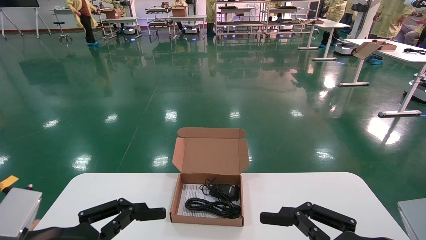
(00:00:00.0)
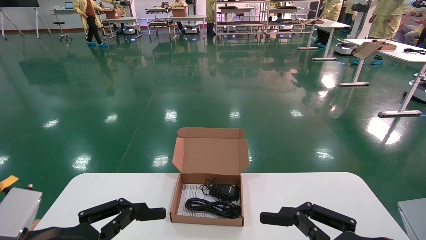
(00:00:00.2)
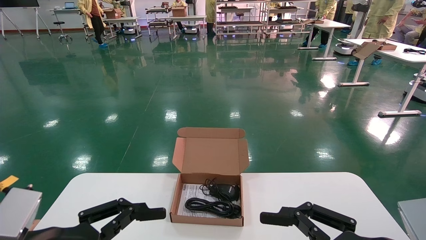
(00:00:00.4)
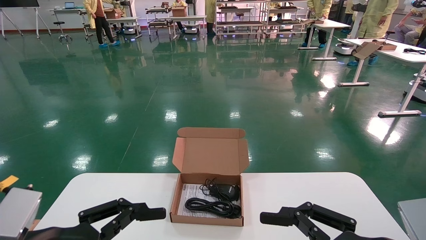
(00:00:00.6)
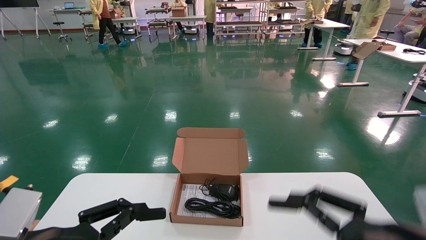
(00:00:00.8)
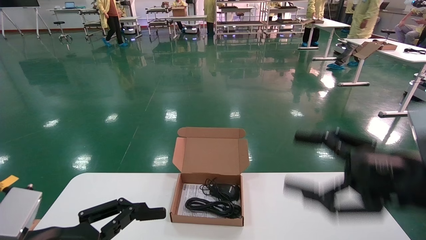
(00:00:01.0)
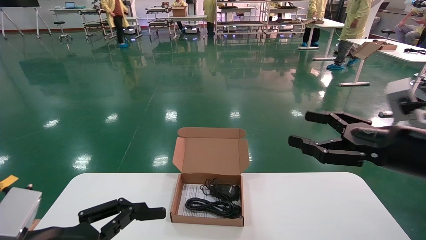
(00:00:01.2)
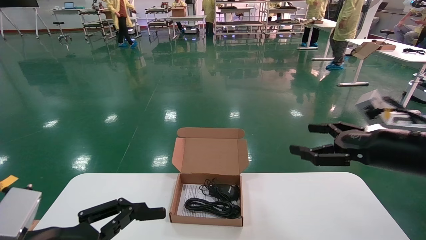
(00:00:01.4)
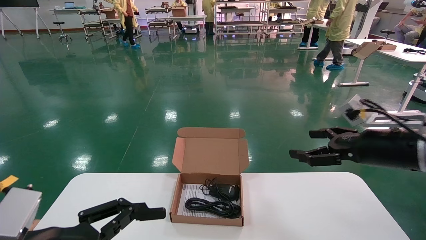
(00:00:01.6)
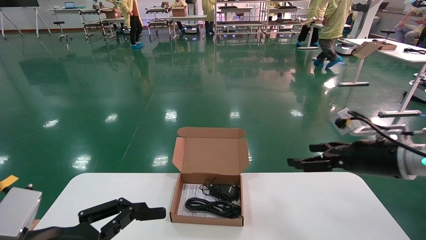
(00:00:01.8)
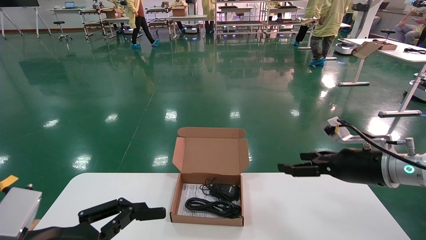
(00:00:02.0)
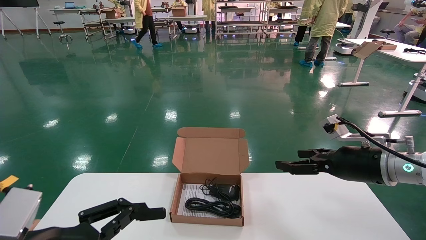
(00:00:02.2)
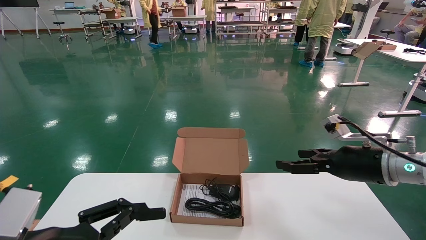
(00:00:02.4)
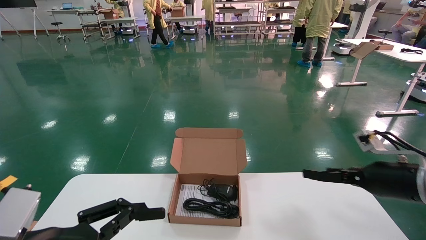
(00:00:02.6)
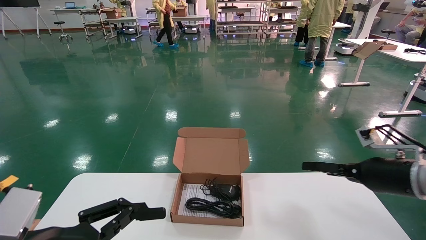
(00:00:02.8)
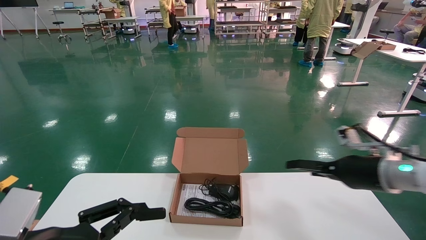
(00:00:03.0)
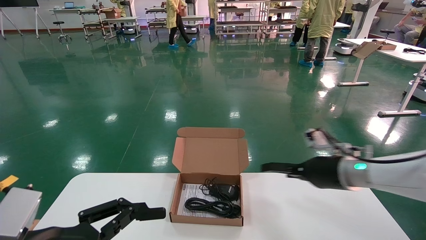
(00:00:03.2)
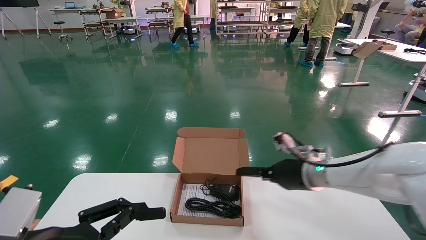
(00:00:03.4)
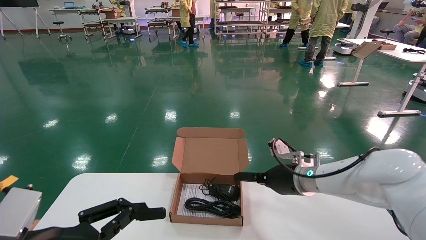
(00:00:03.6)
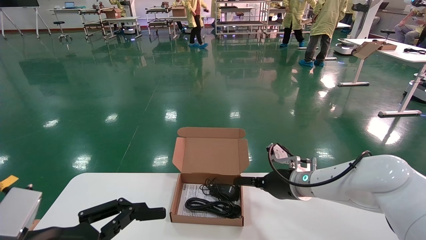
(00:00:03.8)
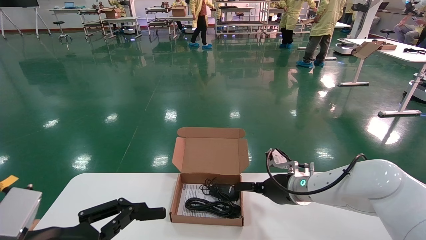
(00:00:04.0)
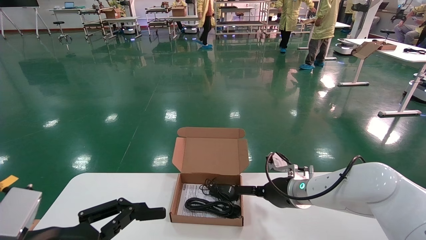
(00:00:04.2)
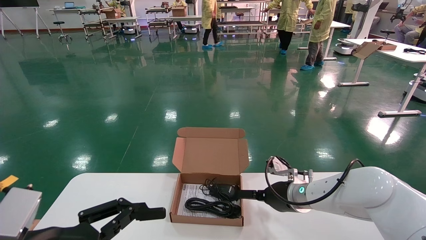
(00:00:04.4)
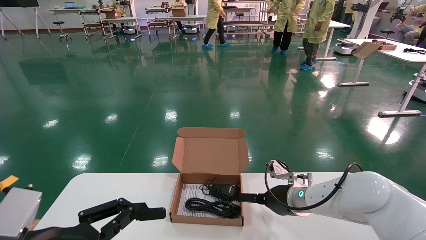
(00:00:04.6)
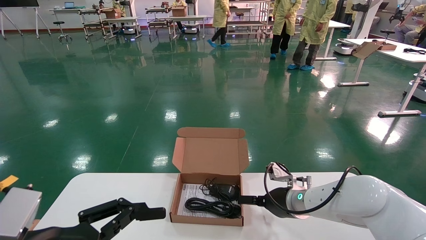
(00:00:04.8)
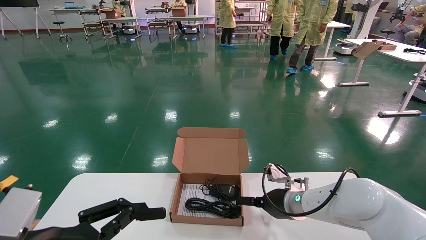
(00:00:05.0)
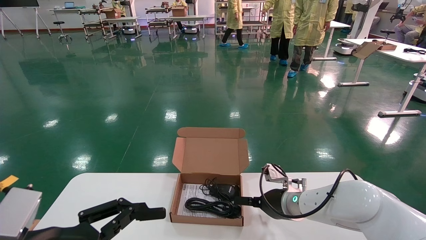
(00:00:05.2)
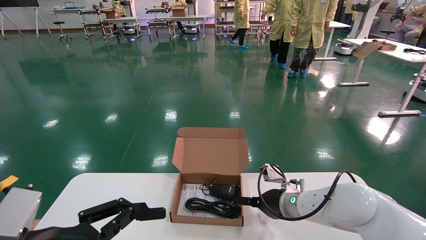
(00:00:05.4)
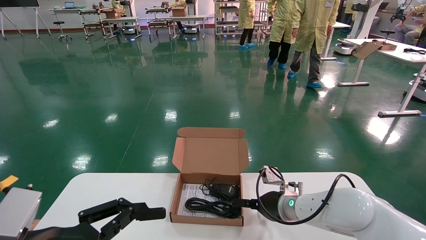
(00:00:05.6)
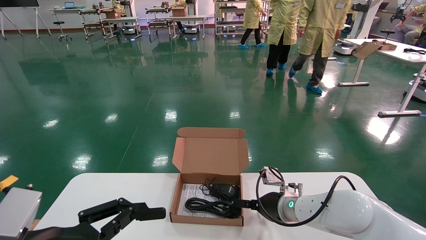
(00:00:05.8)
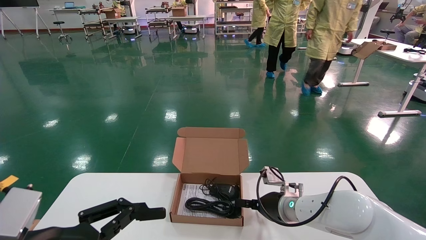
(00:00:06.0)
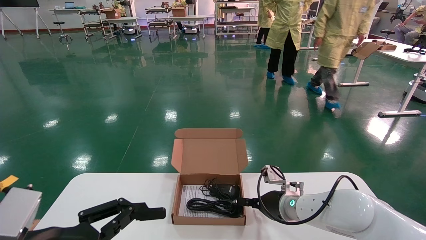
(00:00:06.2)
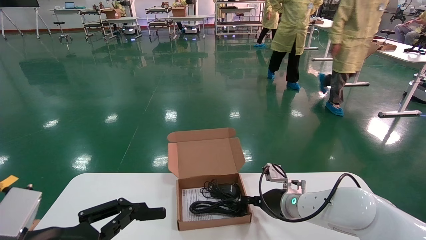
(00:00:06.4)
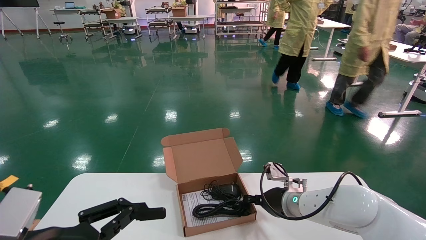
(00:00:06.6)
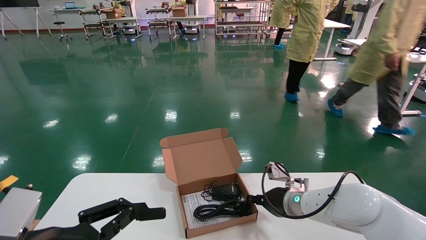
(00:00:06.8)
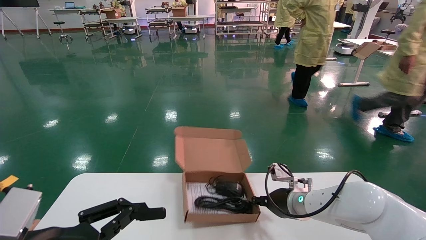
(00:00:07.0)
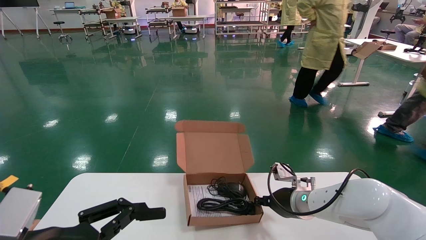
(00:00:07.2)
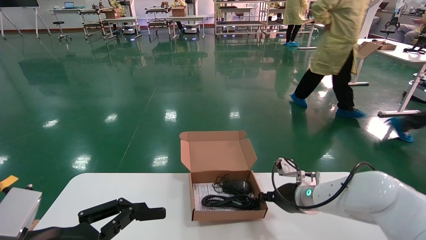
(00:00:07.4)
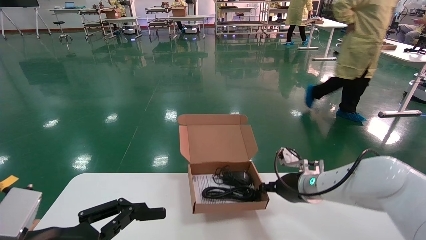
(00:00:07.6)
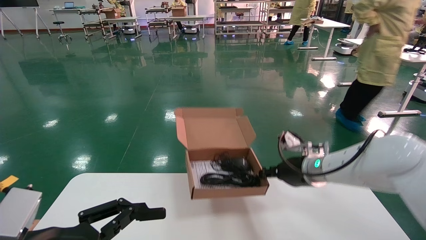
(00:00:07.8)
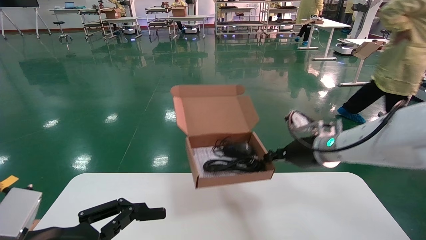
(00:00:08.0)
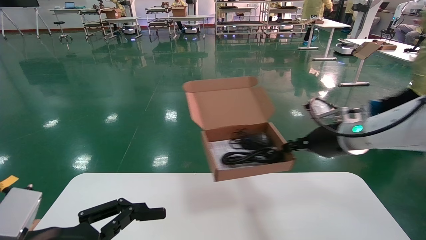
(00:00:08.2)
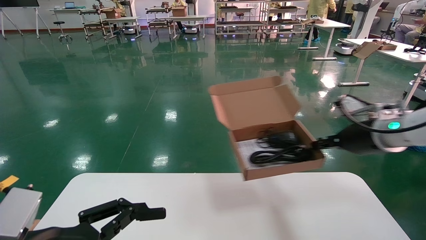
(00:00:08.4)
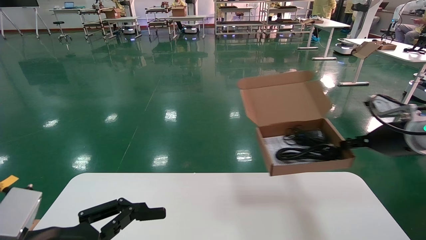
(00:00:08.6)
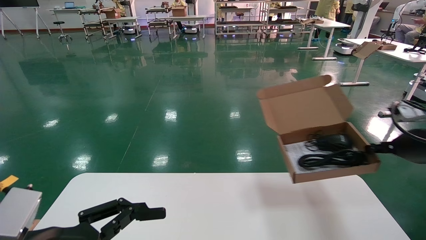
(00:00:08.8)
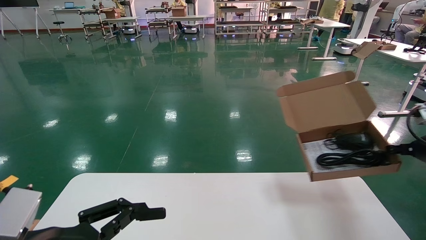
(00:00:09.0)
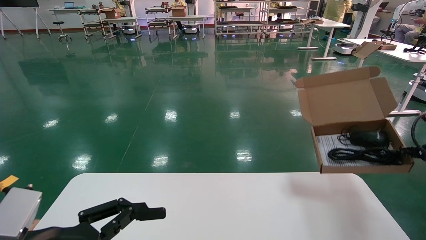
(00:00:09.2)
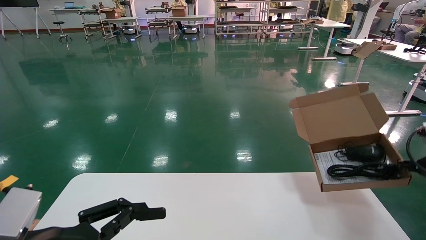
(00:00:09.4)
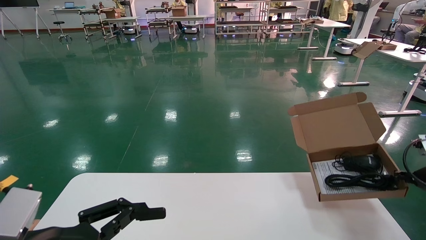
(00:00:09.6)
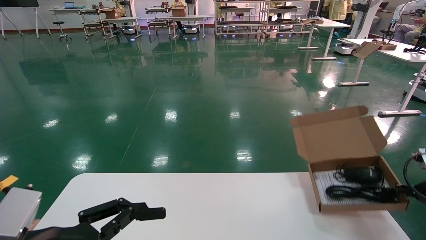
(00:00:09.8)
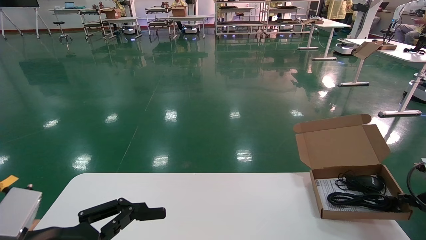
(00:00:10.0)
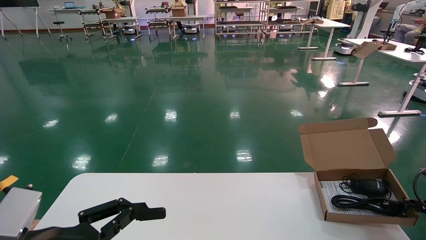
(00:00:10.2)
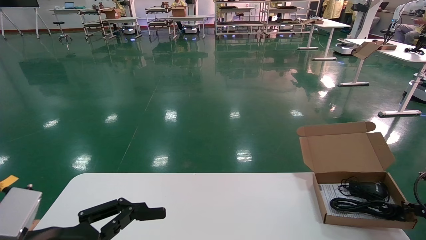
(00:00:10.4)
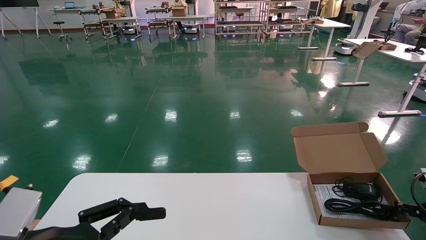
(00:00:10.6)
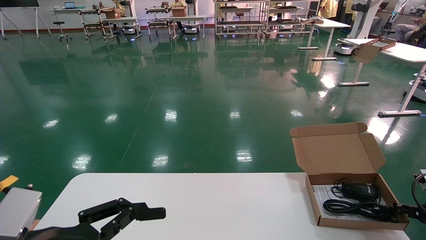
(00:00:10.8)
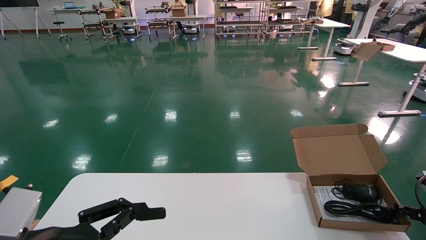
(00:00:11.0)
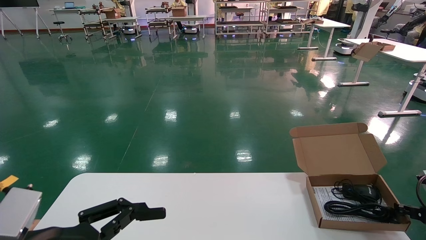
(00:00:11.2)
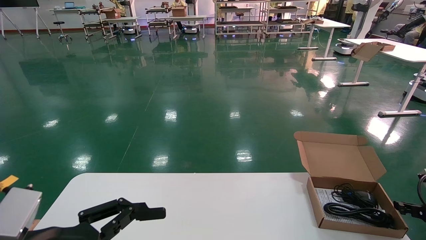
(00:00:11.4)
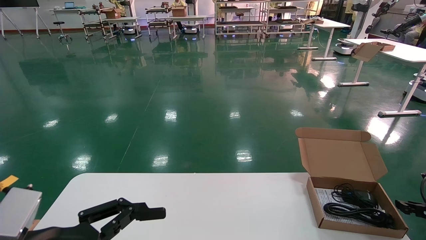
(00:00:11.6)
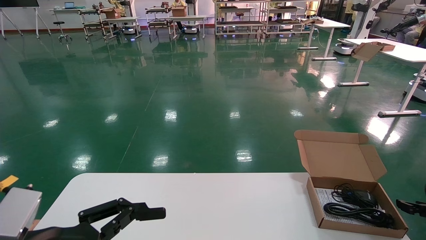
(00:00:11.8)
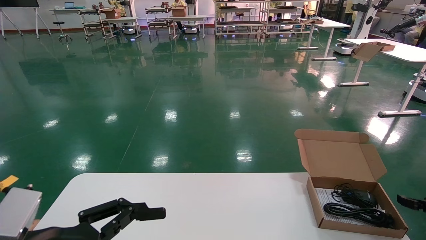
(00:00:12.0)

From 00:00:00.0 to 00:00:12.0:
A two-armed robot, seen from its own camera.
Task of the whole recording: move the position of the storage box with accessories on the table.
Step, from 00:00:01.0 to 00:00:06.8: Grab and pick up the open mouse box from the accessory packaging area.
Step, from 00:00:07.0 to 00:00:11.6: Place the open mouse box onto the operation table.
From 00:00:00.0 to 00:00:01.6: The right gripper travels forward and upward by roughly 20 cm.
From 00:00:01.6 to 00:00:03.0: The right gripper travels downward and forward by roughly 10 cm.
From 00:00:03.0 to 00:00:04.4: The right gripper is displaced to the left and downward by about 15 cm.
From 00:00:04.4 to 00:00:06.0: There are only small adjustments of the grippers.
From 00:00:06.0 to 00:00:07.6: The right gripper shifts about 5 cm upward, and closes up.
From 00:00:07.6 to 00:00:09.0: The right gripper is displaced to the right by about 25 cm.
From 00:00:09.0 to 00:00:10.4: The right gripper shifts some 15 cm downward.
From 00:00:10.4 to 00:00:12.0: The right gripper opens its fingers.

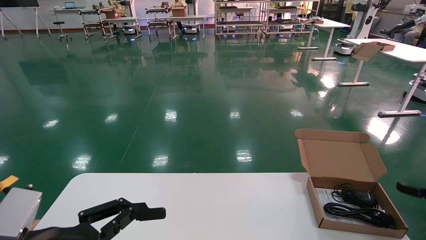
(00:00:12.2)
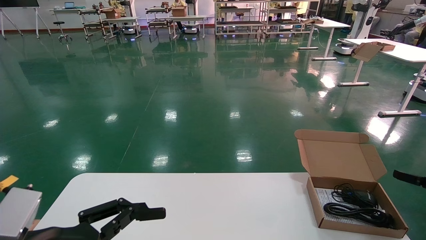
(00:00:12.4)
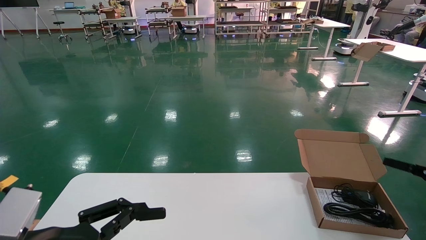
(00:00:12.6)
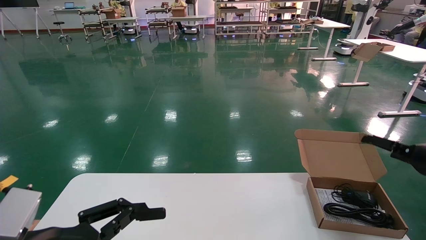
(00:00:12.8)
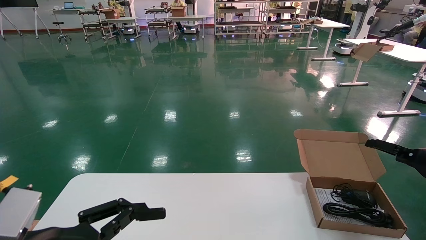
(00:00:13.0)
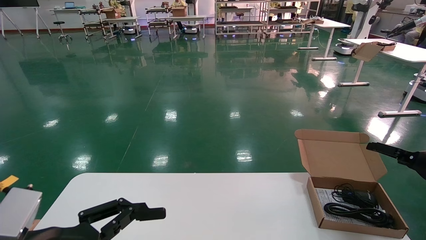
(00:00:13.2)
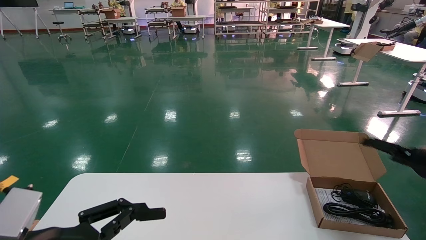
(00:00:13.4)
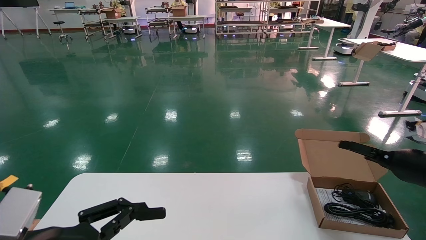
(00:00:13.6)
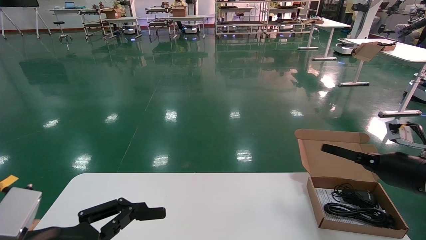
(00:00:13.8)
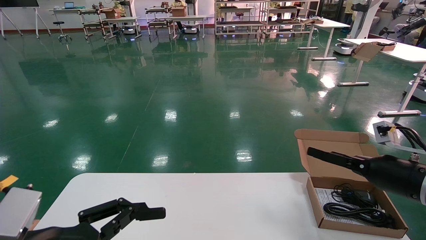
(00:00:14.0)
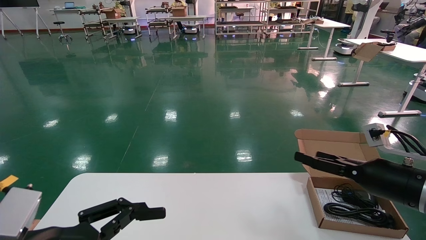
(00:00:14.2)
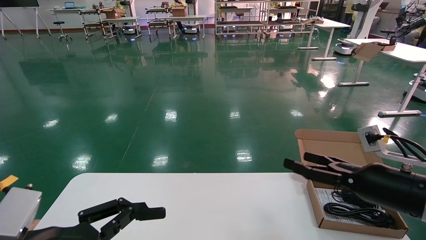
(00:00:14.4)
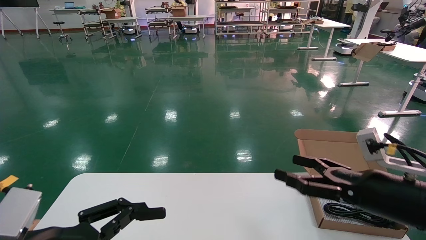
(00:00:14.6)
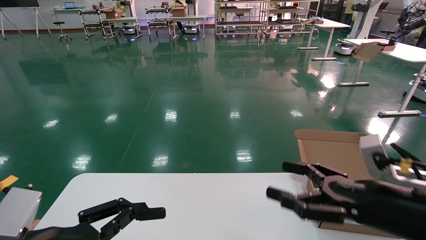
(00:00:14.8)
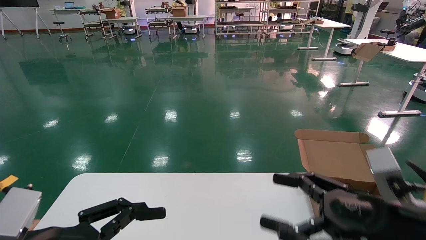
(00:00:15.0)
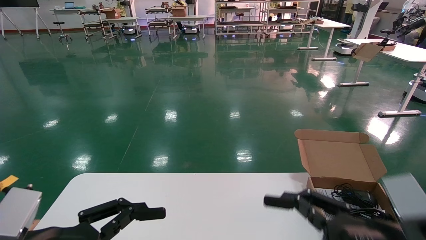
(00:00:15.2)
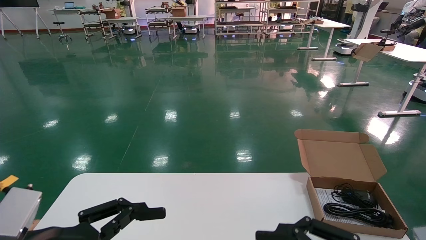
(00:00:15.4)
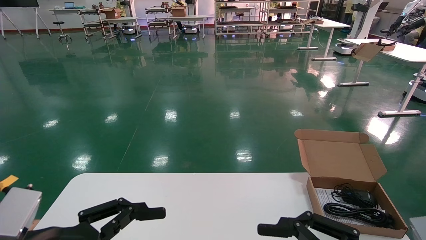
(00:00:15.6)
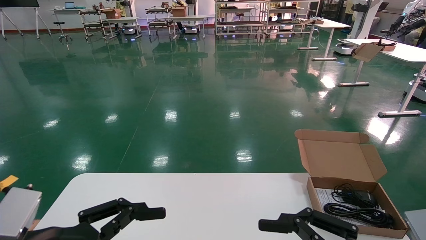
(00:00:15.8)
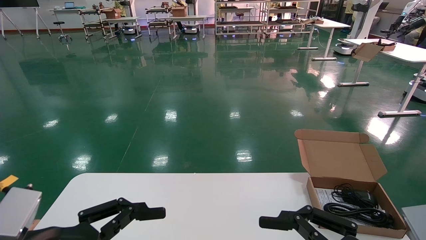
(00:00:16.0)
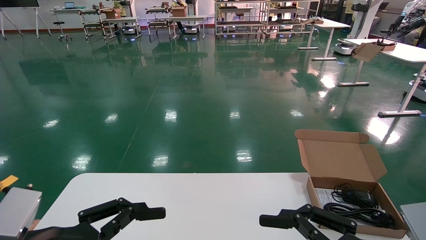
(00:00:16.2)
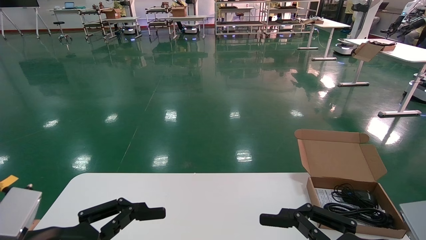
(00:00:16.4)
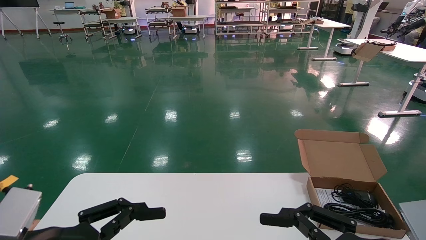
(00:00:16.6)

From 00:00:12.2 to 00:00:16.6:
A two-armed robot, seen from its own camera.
Task of the whole recording: move the position of the storage box with accessories on the table.
From 00:00:12.2 to 00:00:13.6: The right gripper moves to the left and upward, some 10 cm, and opens its fingers.
From 00:00:13.6 to 00:00:15.2: The right gripper travels backward and to the left by some 25 cm.
From 00:00:15.2 to 00:00:16.6: The grippers move only a little.
